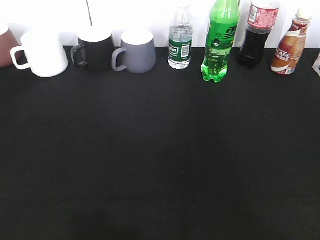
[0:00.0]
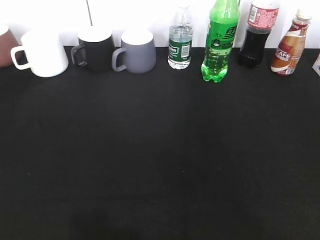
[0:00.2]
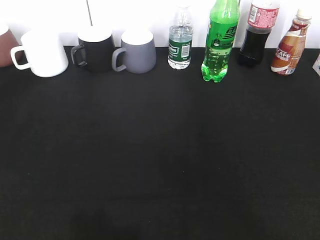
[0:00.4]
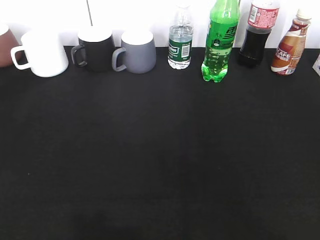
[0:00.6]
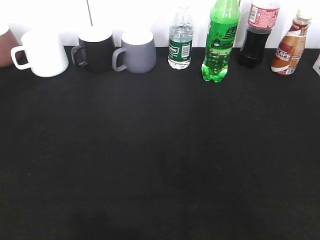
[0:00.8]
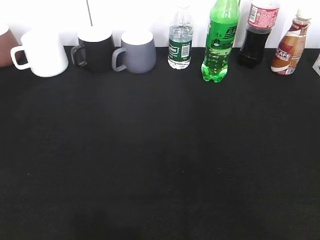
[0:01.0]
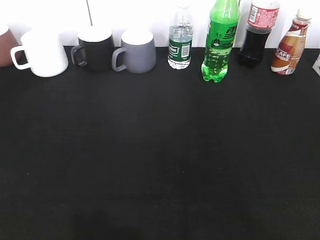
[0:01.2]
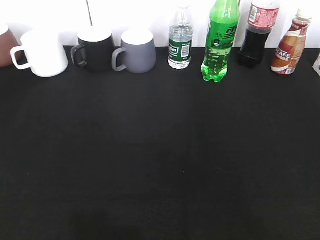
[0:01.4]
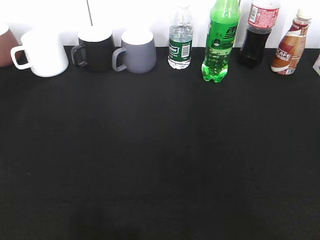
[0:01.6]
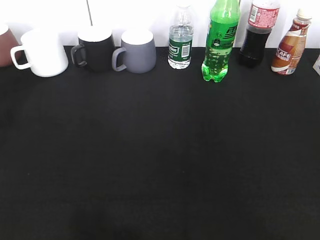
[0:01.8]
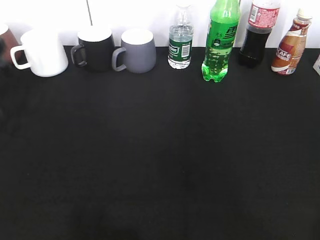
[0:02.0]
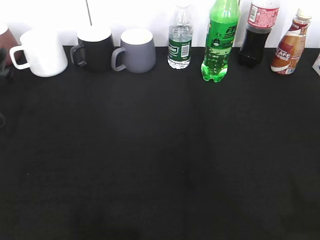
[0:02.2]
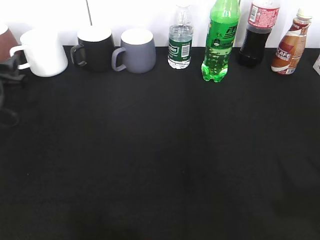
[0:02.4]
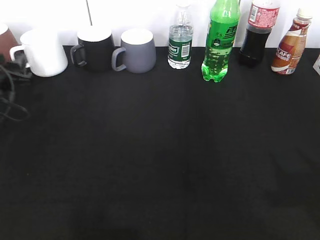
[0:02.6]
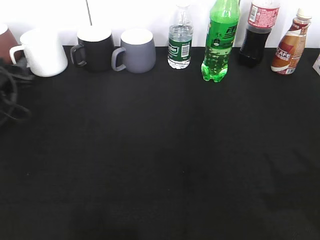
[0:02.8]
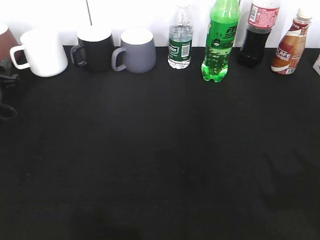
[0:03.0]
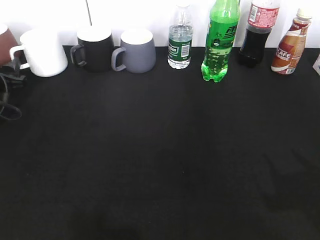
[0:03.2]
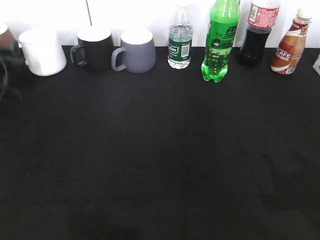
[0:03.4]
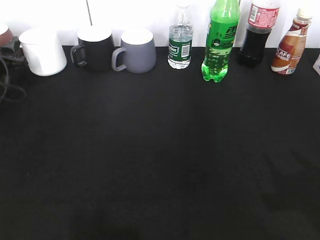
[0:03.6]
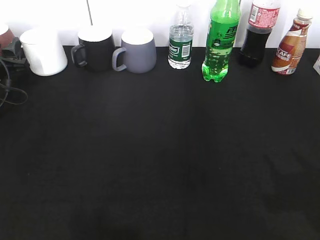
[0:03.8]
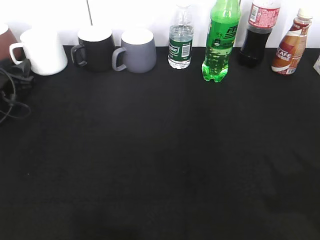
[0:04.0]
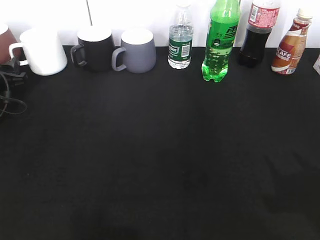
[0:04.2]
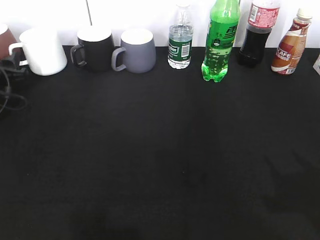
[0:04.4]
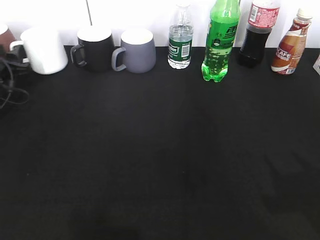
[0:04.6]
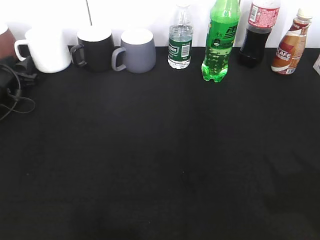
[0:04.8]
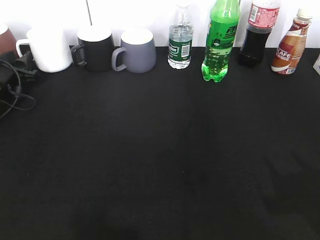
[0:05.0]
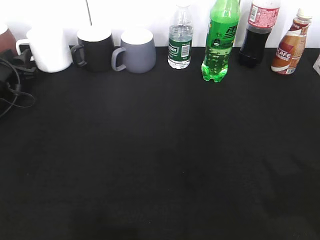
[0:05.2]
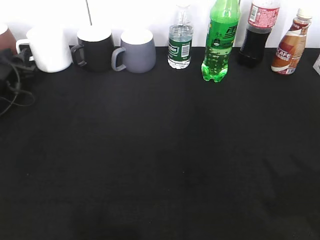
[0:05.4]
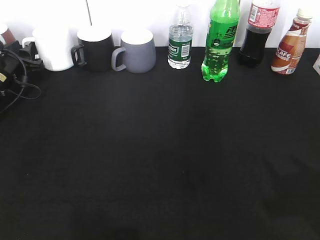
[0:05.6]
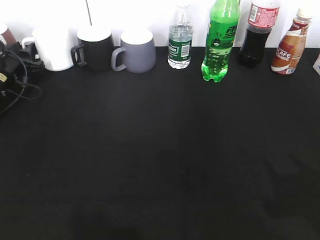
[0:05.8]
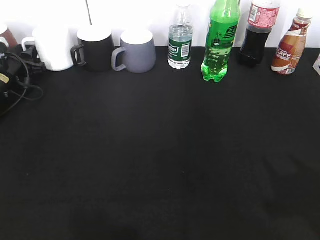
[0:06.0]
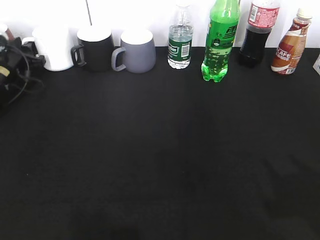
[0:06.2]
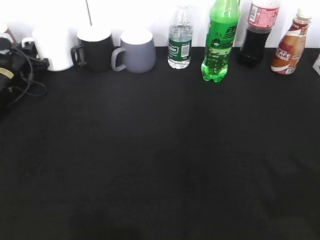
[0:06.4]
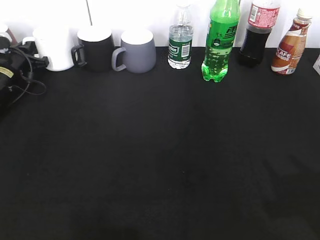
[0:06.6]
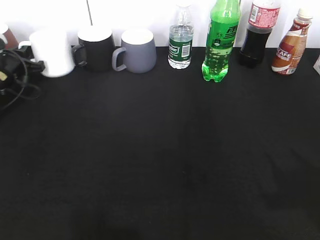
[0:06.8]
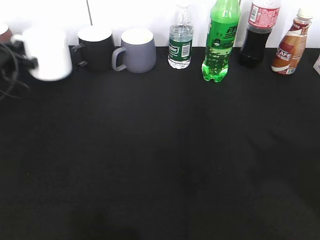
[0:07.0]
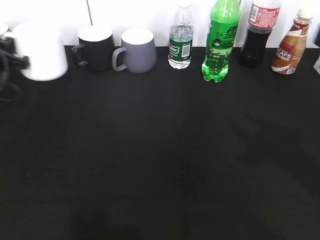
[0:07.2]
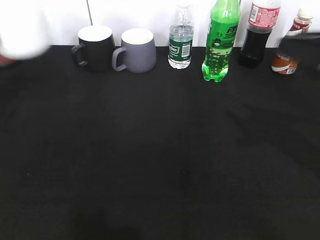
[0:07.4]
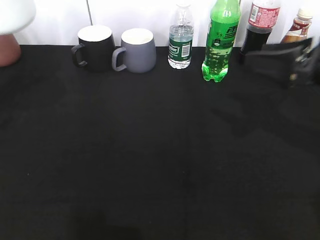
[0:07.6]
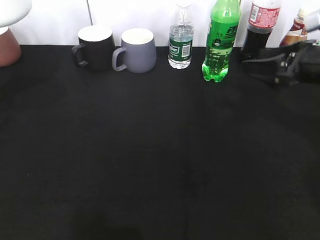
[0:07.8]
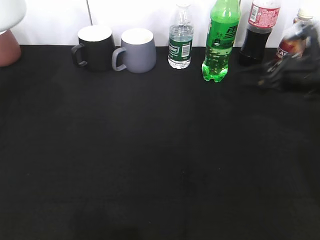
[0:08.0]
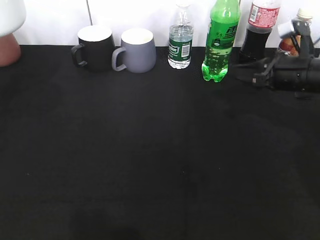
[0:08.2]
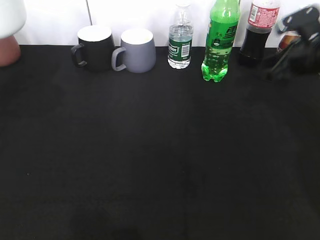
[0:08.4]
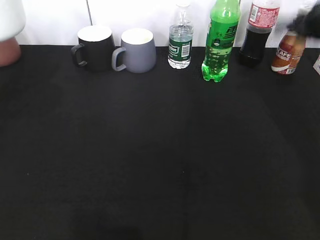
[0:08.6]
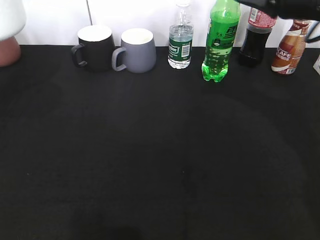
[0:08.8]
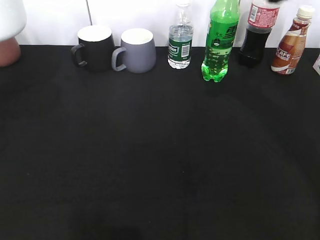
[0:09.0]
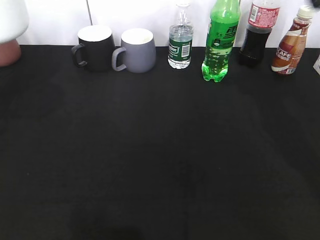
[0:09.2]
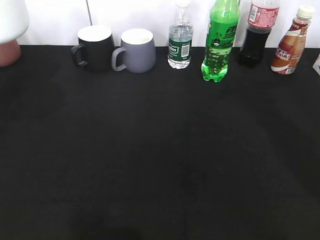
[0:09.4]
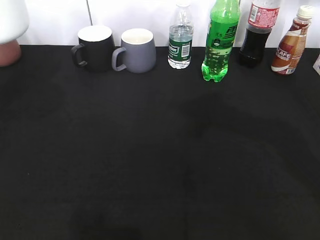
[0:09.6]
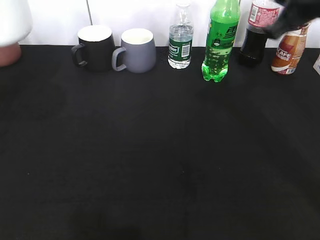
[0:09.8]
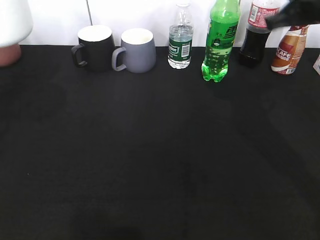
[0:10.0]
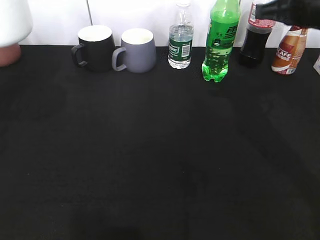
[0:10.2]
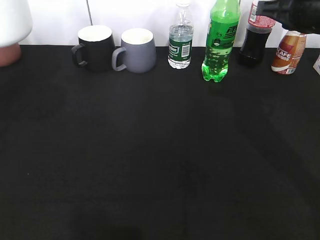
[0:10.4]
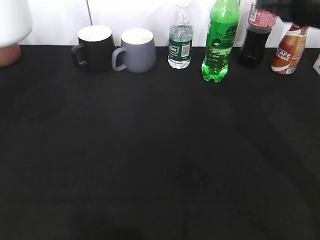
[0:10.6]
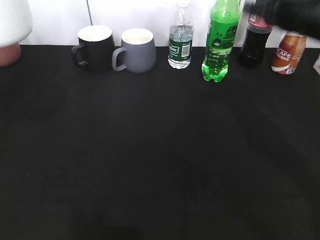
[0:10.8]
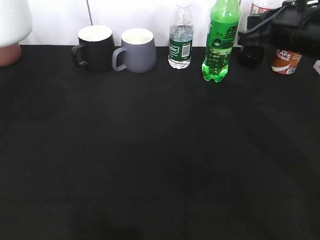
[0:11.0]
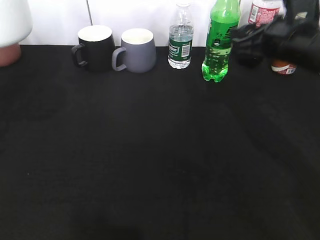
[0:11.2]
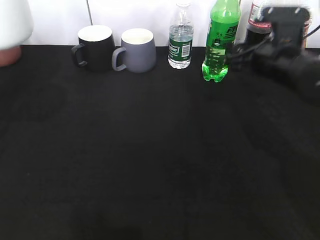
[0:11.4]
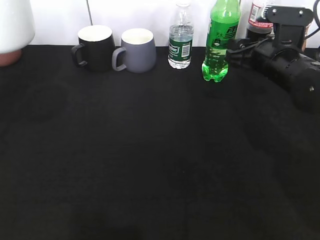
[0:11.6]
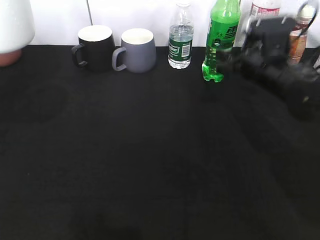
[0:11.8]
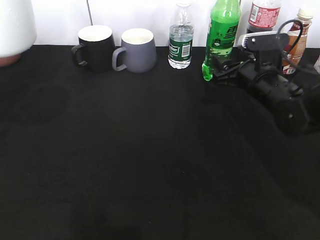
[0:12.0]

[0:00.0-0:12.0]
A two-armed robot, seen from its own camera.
Step, 0:00.0 to 0:06.4: Grasp the white cup with left gripper.
Step, 0:06.6 to 0:07.0: Lift the white cup with left gripper.
0:01.6 to 0:03.0: The left gripper shifts approximately 30 cm forward and downward.
0:03.0 to 0:04.4: There are only small adjustments of the grippers.
0:04.4 to 0:06.0: The left gripper shifts about 5 cm forward.
0:06.0 to 0:07.6: The left gripper shifts roughly 30 cm upward and backward, and closes. The right gripper moves forward and downward, some 25 cm.
0:07.6 to 0:09.0: The right gripper heads upward, covering some 10 cm, and closes its fingers.
0:10.4 to 0:12.0: The right gripper goes some 15 cm downward, and opens.

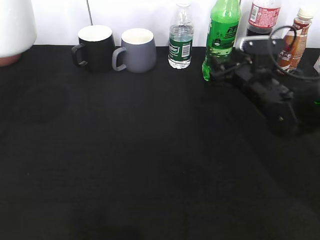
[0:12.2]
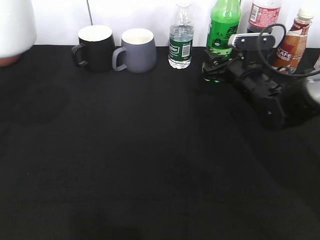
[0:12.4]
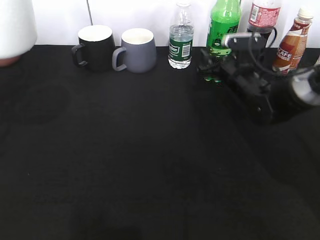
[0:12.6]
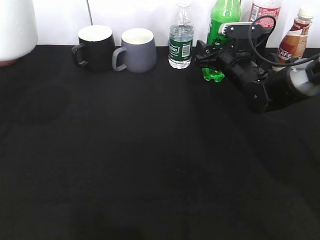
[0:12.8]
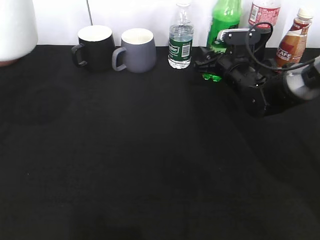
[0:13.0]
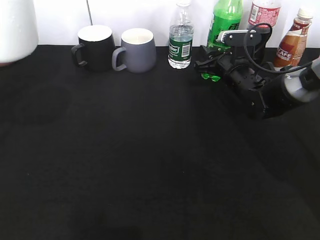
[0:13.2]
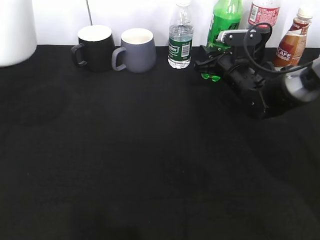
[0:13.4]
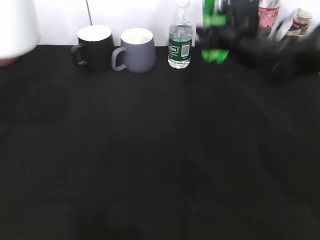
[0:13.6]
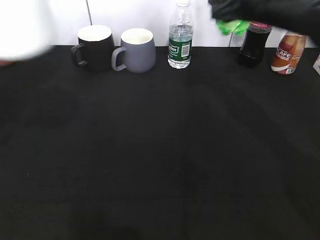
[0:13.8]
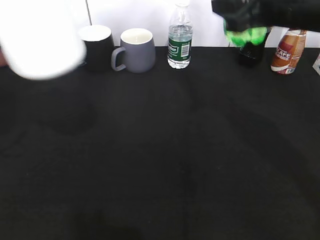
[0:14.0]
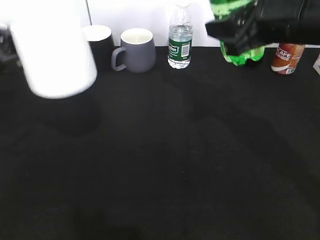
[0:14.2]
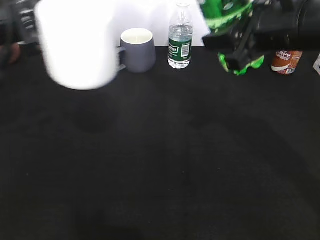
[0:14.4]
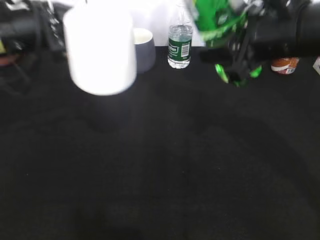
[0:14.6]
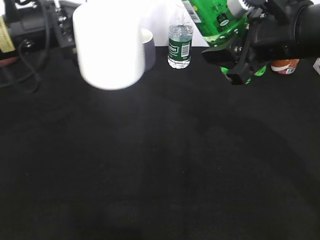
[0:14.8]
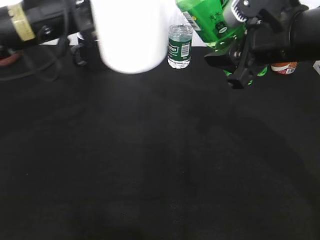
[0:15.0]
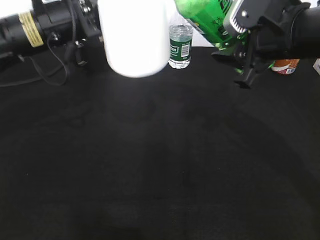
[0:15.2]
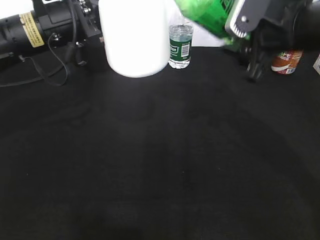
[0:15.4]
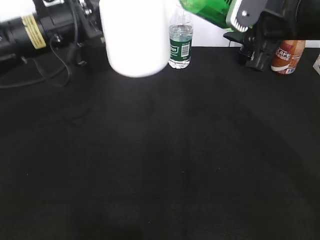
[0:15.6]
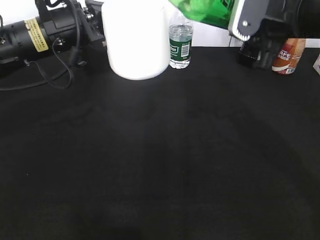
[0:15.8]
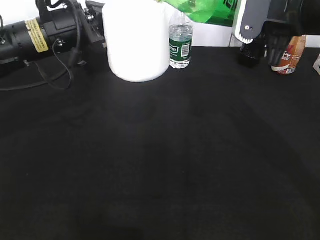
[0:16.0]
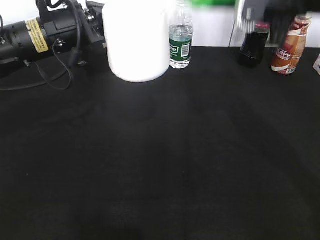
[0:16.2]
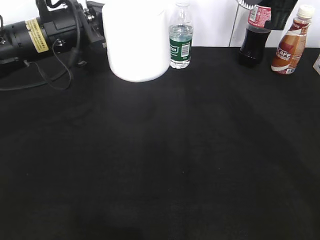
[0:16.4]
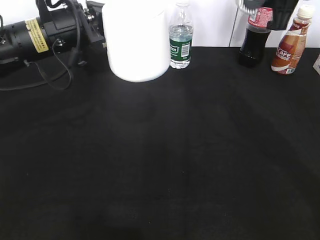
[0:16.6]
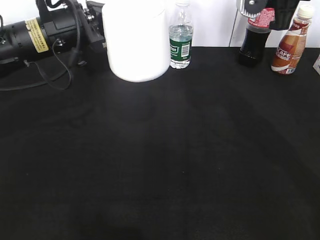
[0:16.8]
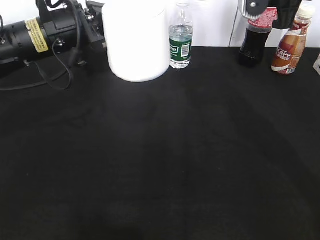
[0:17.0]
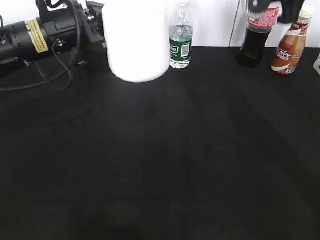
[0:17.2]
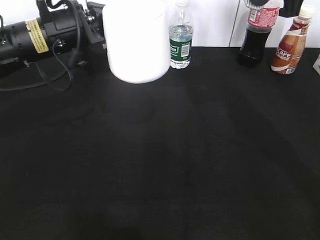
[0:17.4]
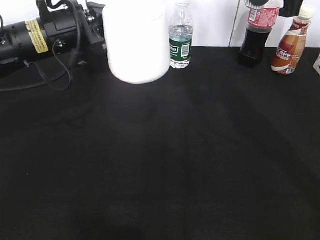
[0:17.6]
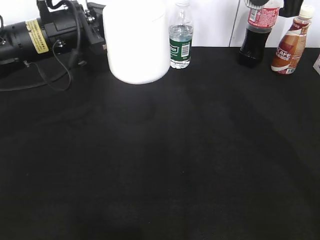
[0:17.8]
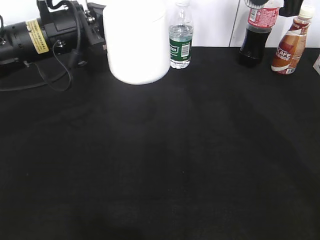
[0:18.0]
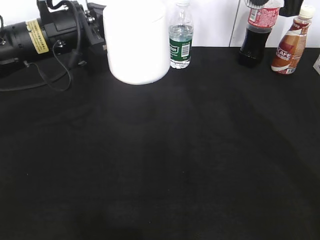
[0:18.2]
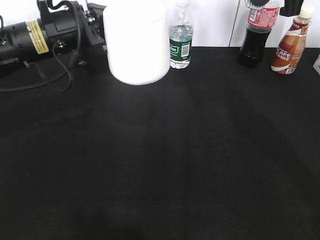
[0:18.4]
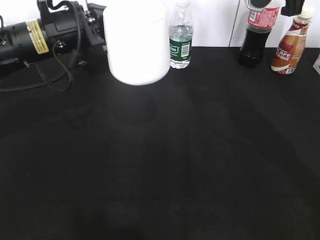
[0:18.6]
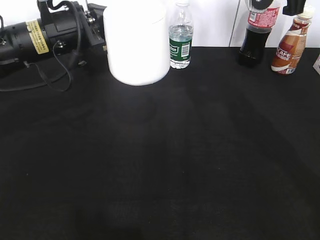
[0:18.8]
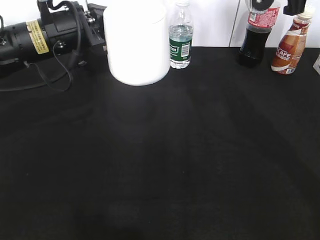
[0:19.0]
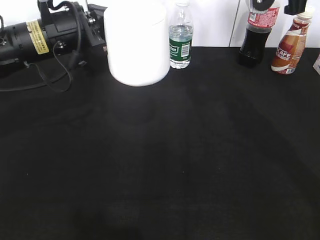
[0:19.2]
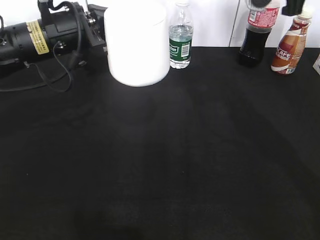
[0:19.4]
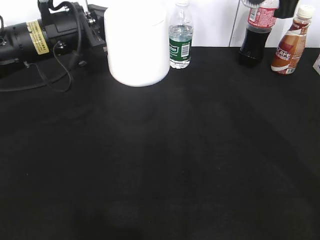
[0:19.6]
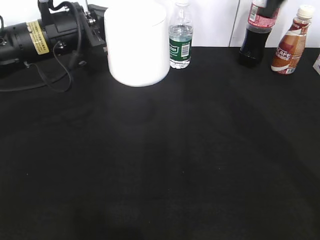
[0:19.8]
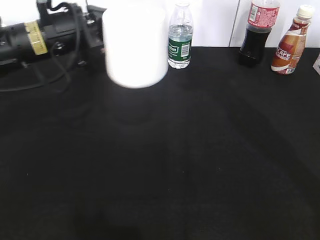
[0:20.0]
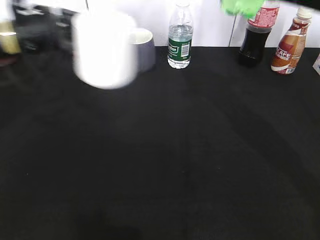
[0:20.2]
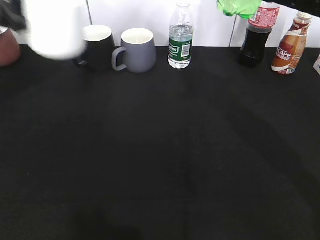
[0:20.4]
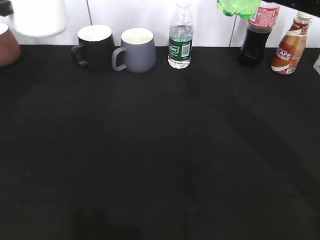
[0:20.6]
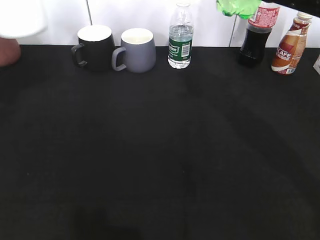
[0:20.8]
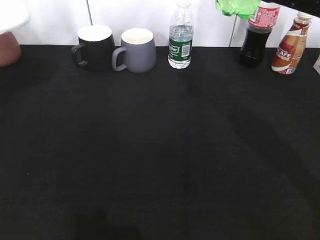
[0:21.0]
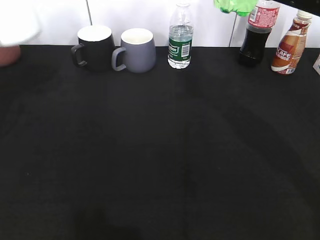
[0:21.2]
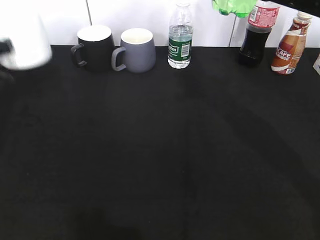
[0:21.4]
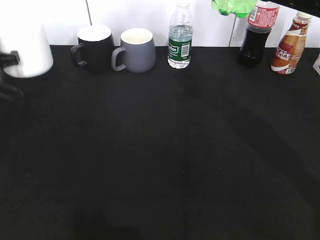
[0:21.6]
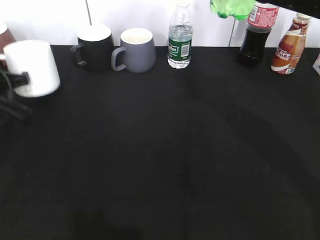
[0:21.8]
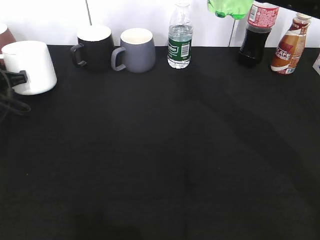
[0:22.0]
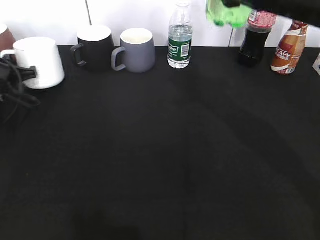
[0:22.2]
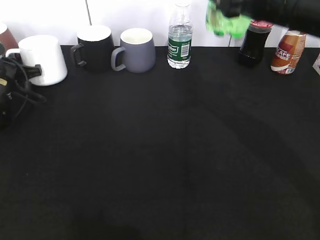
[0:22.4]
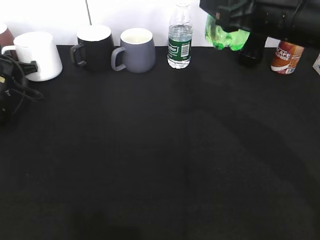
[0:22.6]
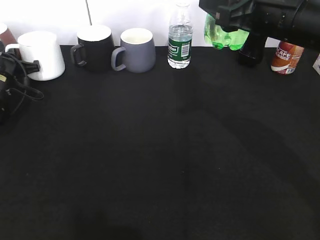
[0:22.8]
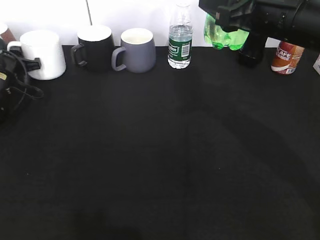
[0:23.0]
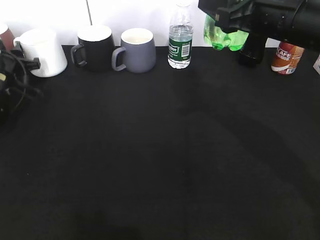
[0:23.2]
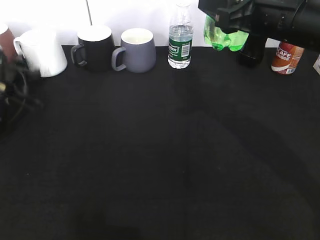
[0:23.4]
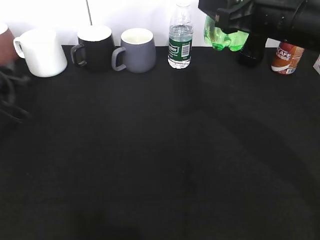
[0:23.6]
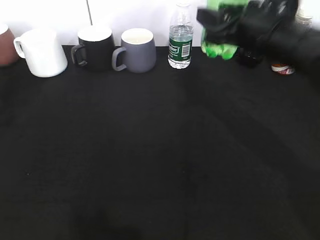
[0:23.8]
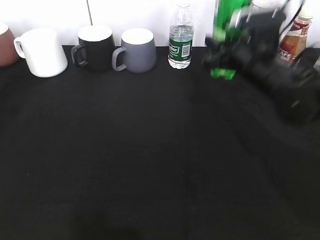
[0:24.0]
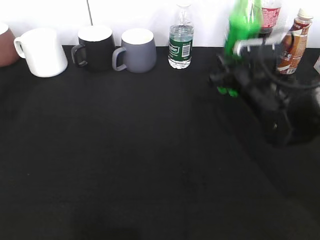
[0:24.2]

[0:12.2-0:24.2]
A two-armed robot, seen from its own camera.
Step, 0:13.6 to 0:19.0: Pour the sprite from bottle to cup with right gripper.
Step, 0:19.4 to 0:23.4: Place the white cup on the table with left gripper.
0:12.2 to 0:13.8: The right gripper goes some 15 cm upward.
0:13.8 to 0:15.2: The left gripper shifts roughly 20 cm to the right, forward and downward; the right gripper shifts approximately 10 cm backward.
0:15.2 to 0:16.6: The right gripper moves upward, approximately 5 cm.
0:16.6 to 0:18.2: The grippers stay close to where they were, moving slightly.
0:19.8 to 0:21.2: The left gripper goes some 15 cm to the left.
0:21.2 to 0:22.6: The left gripper shifts some 20 cm downward and forward.
0:22.6 to 0:24.2: The left gripper goes approximately 30 cm backward and upward, and opens. The right gripper is displaced downward and forward by some 20 cm.
